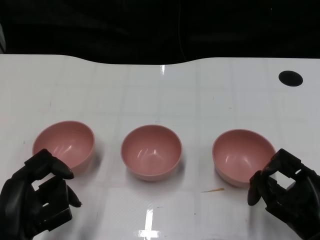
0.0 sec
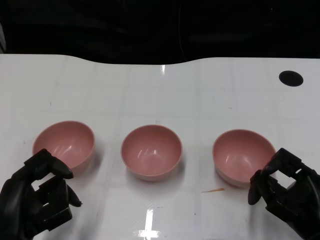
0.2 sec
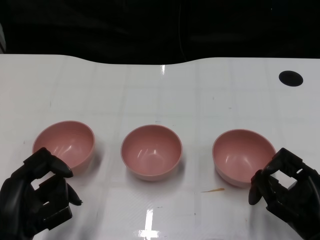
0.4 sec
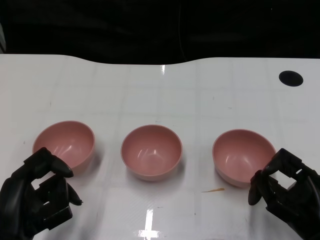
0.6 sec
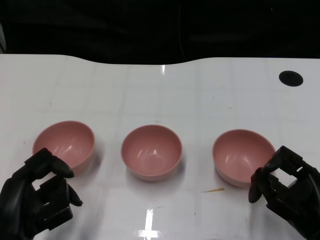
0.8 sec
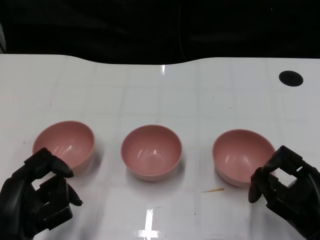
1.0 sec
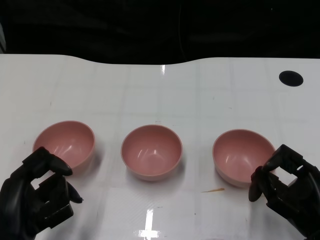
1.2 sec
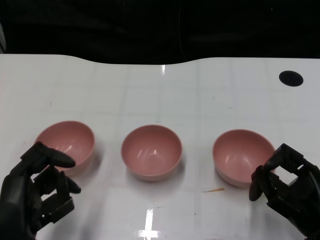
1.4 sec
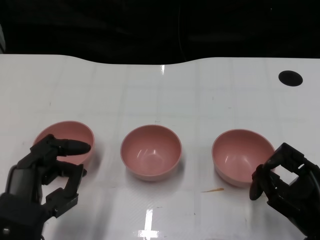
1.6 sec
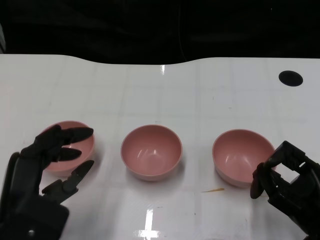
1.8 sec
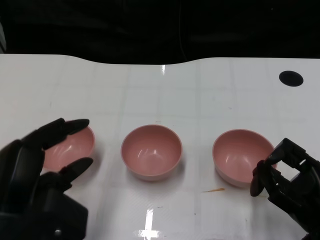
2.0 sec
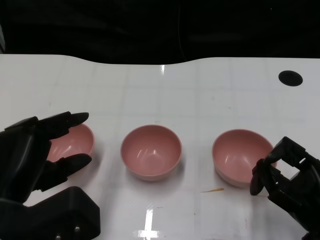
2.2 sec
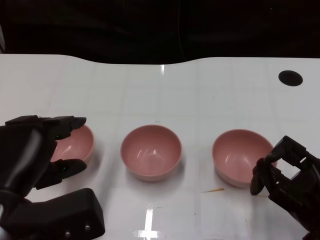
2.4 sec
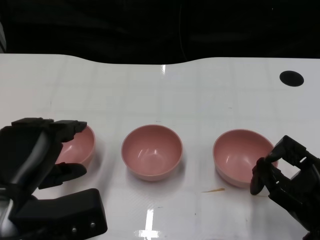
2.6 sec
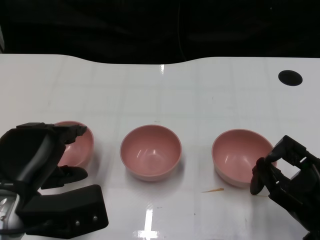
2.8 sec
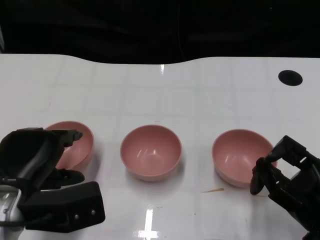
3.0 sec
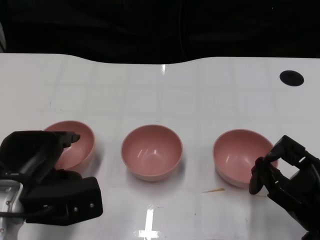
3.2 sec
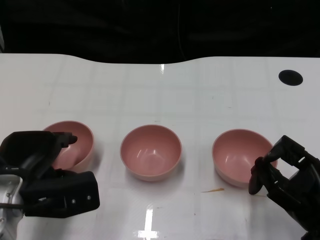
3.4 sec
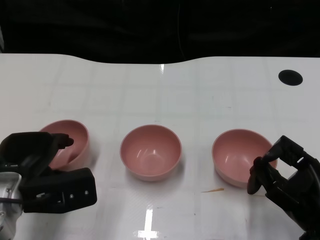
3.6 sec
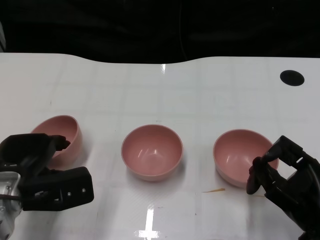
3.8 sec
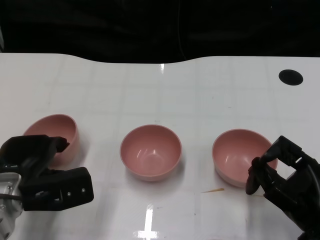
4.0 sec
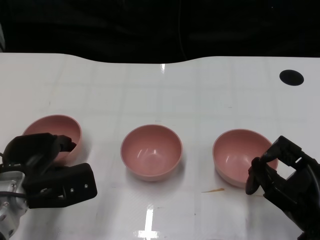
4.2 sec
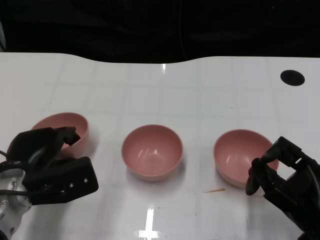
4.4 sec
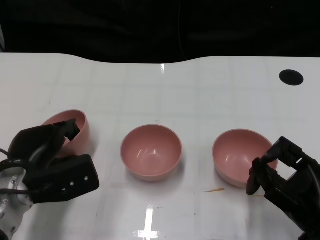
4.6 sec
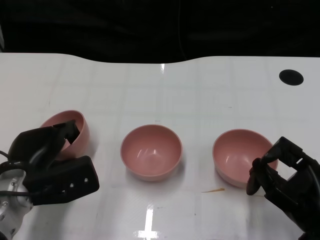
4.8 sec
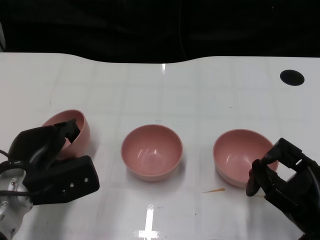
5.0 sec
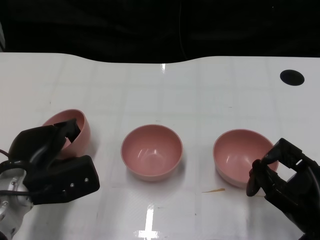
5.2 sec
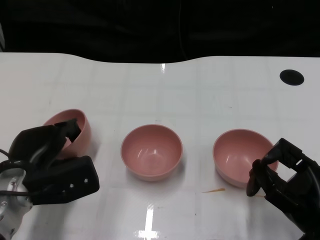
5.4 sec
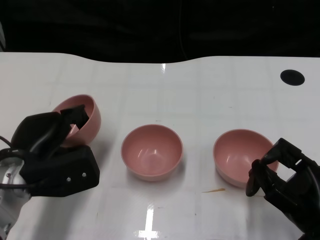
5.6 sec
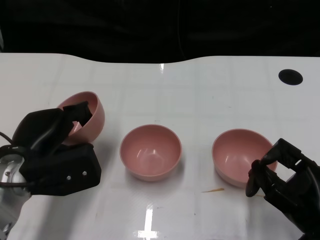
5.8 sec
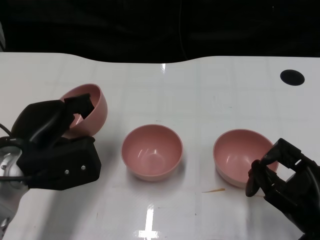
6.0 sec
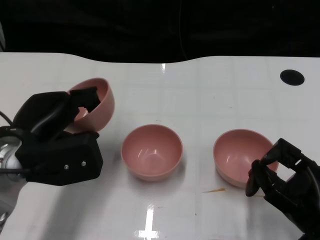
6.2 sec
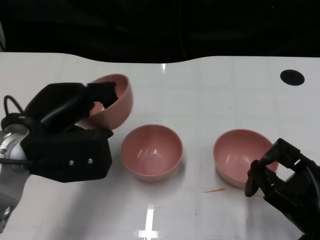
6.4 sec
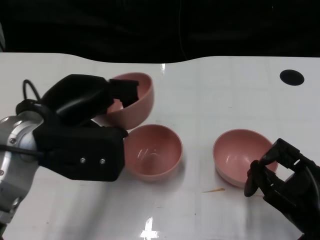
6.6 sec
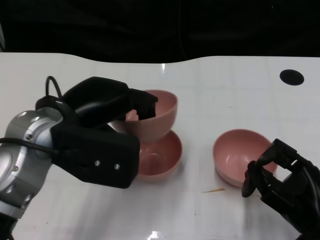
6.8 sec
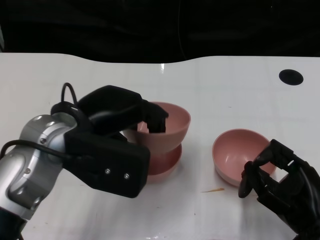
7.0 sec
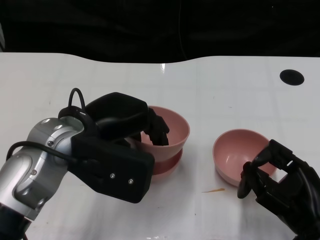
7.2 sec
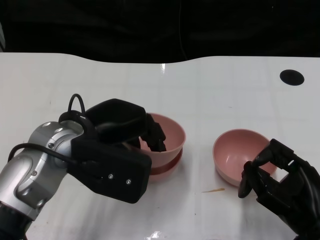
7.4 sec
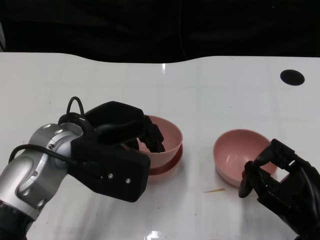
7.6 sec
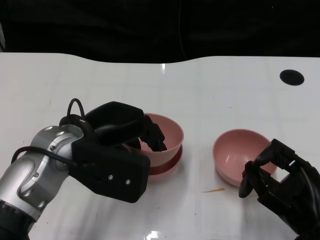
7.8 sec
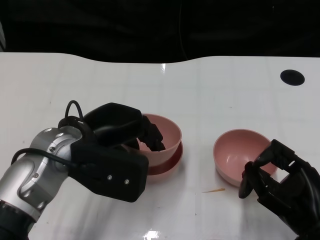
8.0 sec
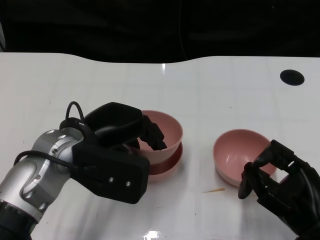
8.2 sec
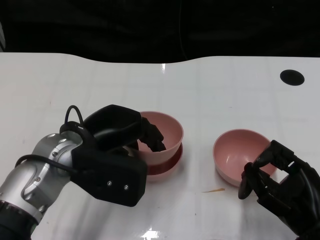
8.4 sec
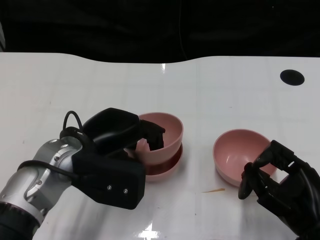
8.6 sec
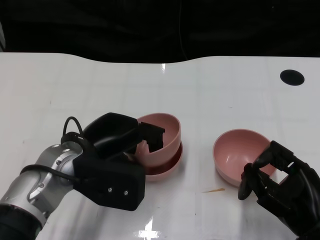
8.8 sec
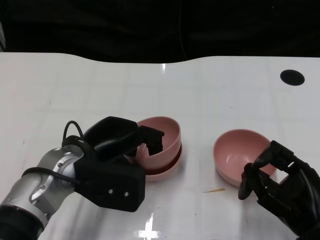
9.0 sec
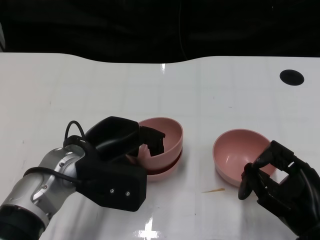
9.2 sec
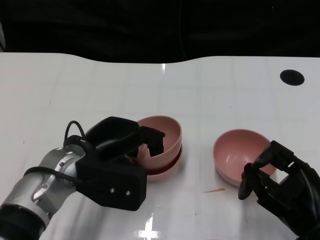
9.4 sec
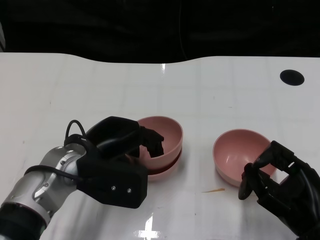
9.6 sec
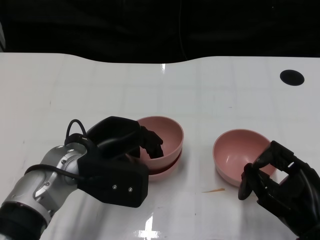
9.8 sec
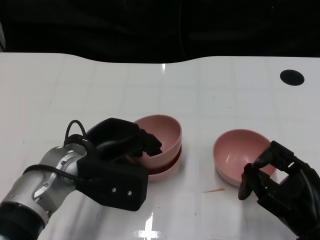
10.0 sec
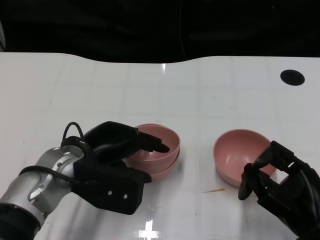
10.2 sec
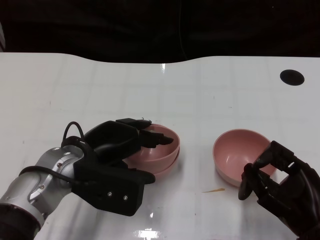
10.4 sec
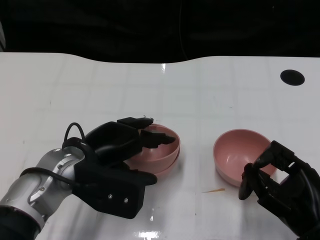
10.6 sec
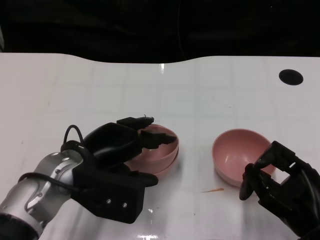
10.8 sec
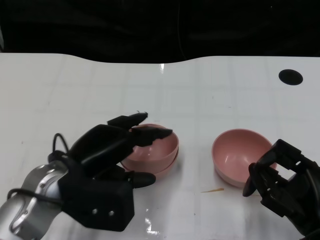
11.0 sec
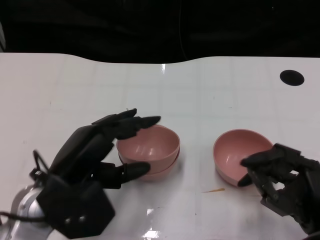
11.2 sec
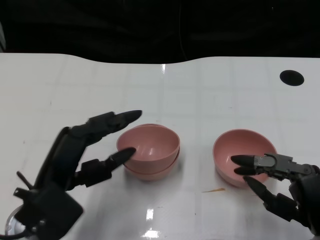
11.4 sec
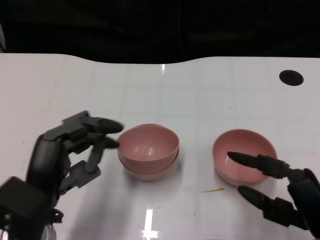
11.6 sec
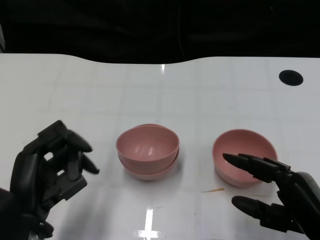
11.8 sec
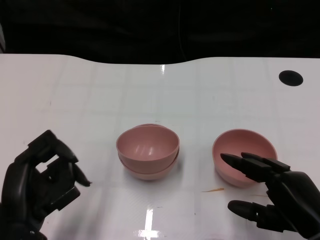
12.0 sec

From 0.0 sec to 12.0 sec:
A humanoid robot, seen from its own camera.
Task of the whole recording: Pick up the bowl on one side of the table and place it on top of the middle bowl, then pick up the bowl on the other side of the table and place it on top of the middle bowls.
Step, from 1.2 sec to 5.4 sec: Grasp the bowl on the left with the left gripper.
Step, from 5.6 sec to 10.8 sec: Place the bowl on the left onto the bowl in the middle with left gripper.
From 1.6 sec to 3.0 sec: The left hand moves forward, some 5 cm.
From 3.0 sec to 4.4 sec: The left hand is displaced forward by about 5 cm.
From 4.4 sec to 6.0 sec: The left hand shifts some 5 cm upward.
From 6.0 sec to 7.6 sec: The left hand is displaced to the right by some 5 cm.
From 7.6 sec to 9.0 sec: The left hand shifts some 5 cm downward.
From 9.0 sec to 10.4 sec: The hands stay close to where they were, moving slightly.
From 10.4 sec to 12.0 sec: The left hand shifts about 10 cm backward and to the left.

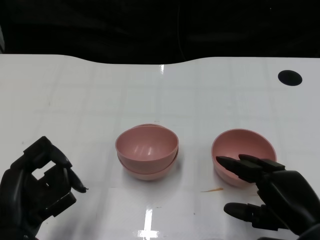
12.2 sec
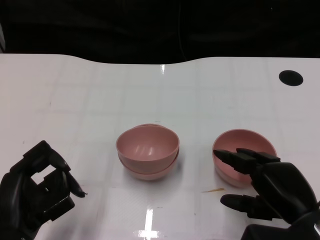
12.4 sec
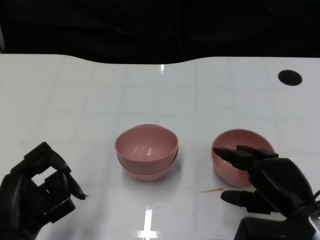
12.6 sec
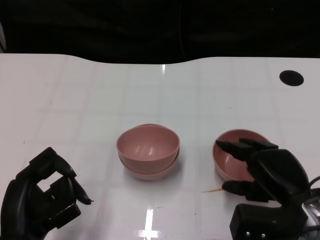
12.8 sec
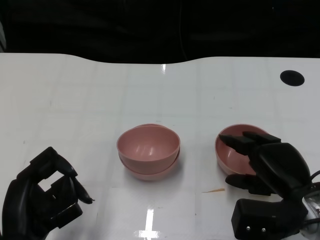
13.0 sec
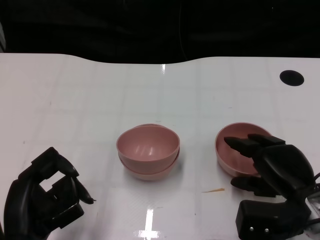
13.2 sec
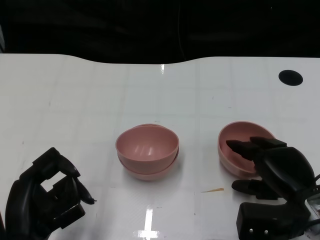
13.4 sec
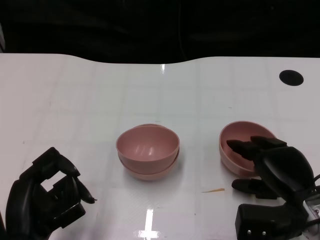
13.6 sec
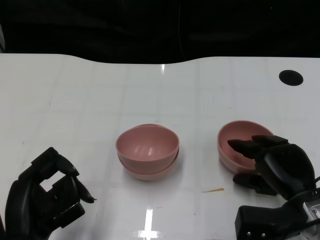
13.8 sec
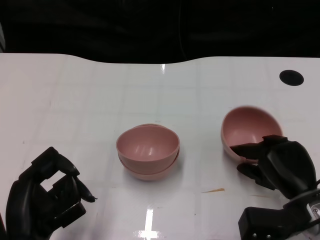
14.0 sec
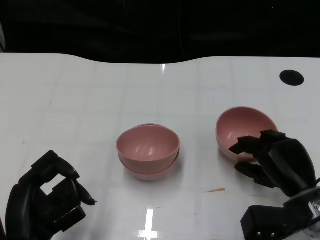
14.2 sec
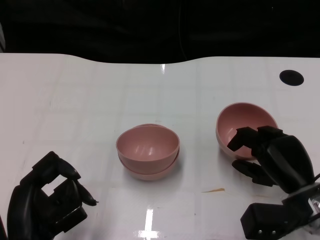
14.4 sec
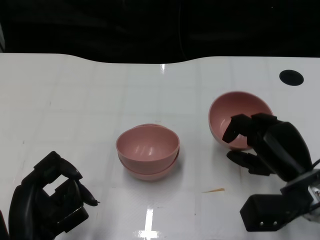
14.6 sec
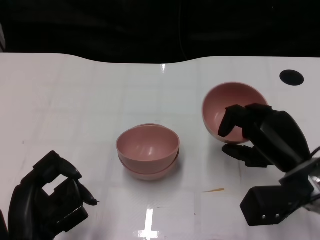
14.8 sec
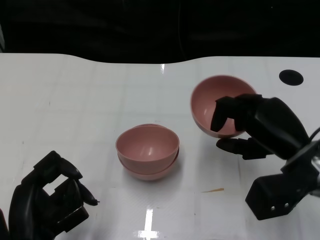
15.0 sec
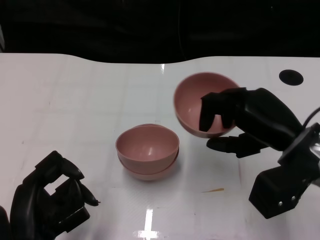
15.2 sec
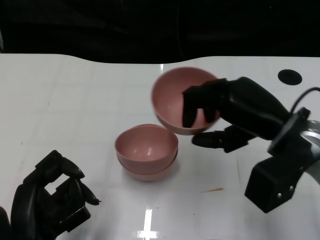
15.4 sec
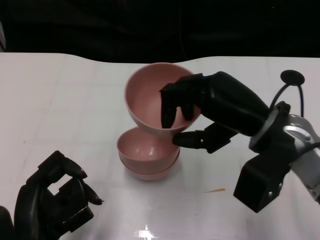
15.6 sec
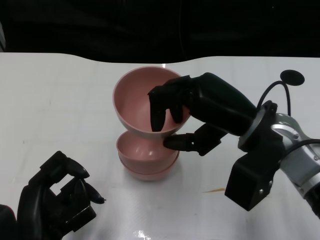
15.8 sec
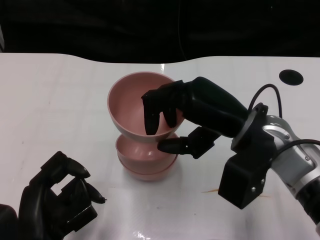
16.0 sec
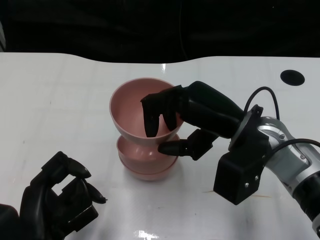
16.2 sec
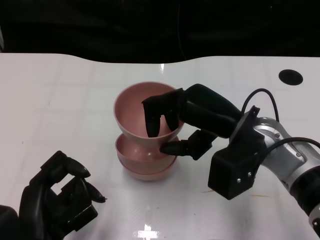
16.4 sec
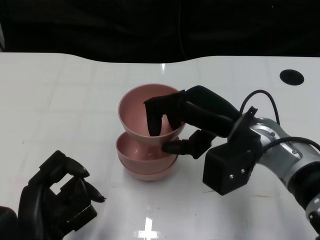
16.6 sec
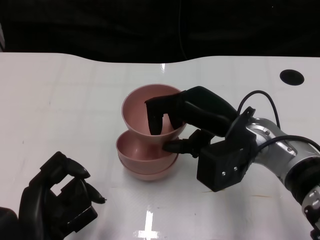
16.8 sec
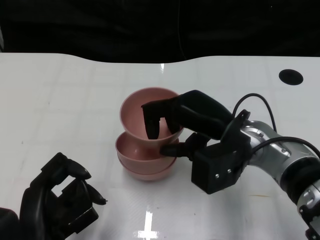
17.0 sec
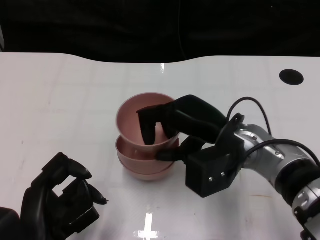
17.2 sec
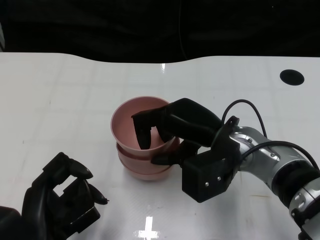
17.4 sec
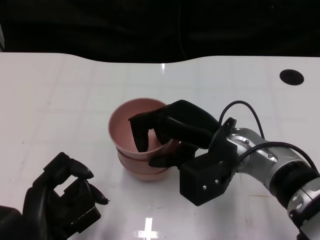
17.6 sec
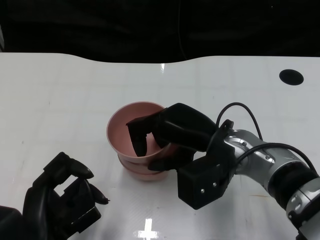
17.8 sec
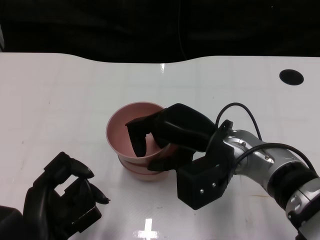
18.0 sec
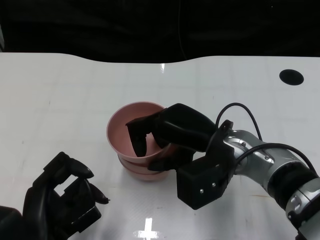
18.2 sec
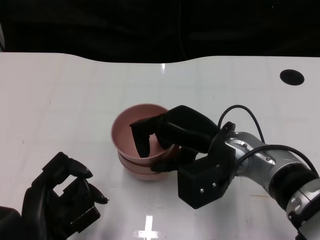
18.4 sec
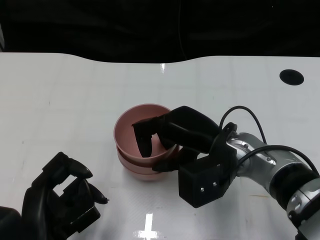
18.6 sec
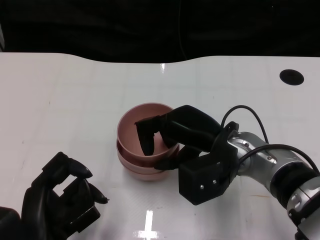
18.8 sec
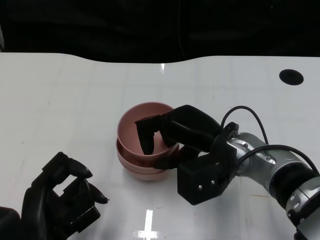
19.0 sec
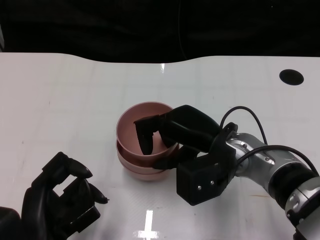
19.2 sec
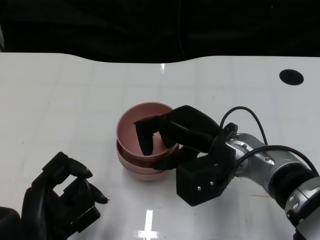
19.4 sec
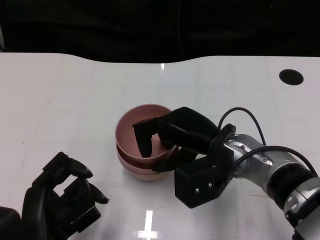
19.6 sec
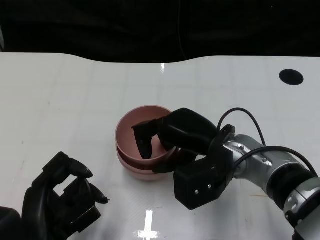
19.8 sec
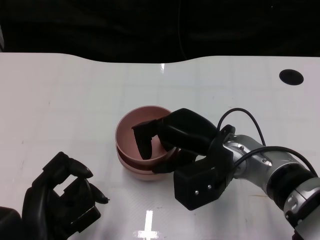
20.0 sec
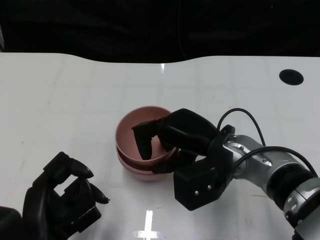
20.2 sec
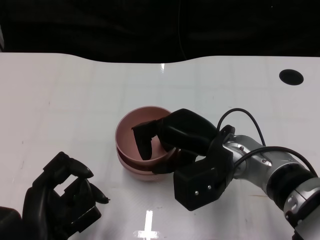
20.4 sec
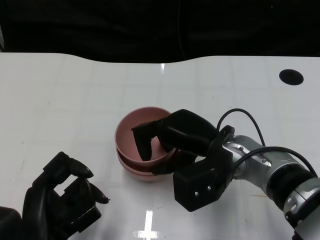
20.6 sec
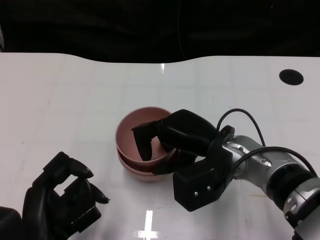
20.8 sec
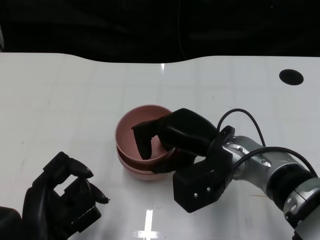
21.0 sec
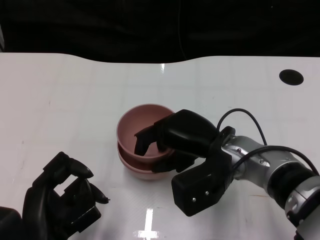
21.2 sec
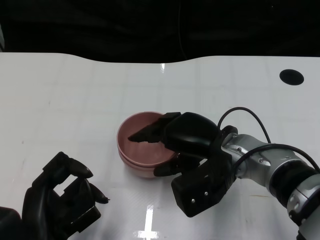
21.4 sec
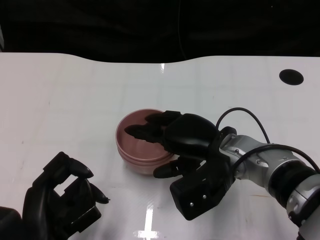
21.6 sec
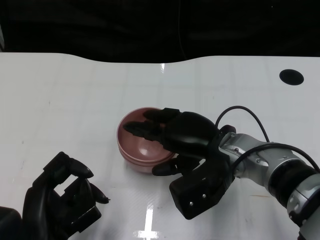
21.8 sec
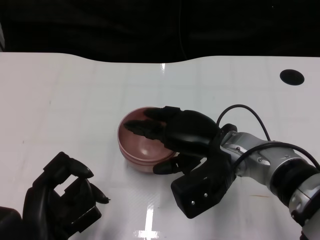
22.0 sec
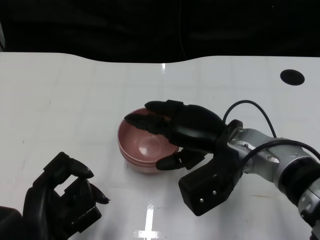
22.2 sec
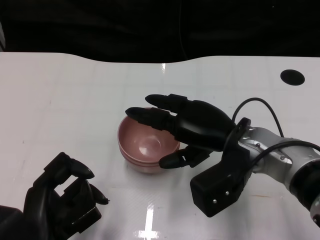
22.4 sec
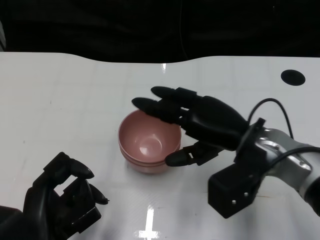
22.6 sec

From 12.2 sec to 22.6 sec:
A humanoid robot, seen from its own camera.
Task of the whole recording: Pick up the bowl on one side of the table and place it on top of the middle bowl, then pick up the bowl on the other side of the table and place it on top of the middle bowls.
Step, from 12.2 sec to 14.4 sec: Grasp the bowl on the right with the right gripper.
Step, from 14.6 sec to 22.2 sec: Place the bowl on the right onto the bowl in the middle with right gripper.
From 12.2 sec to 13.6 sec: The right hand shifts some 5 cm forward.
From 13.6 sec to 15.2 sec: The right hand moves upward, approximately 10 cm.
From 15.2 sec to 16.6 sec: The right hand goes about 5 cm to the left.
From 18.2 sec to 21.2 sec: There are only small adjustments of the hands.
